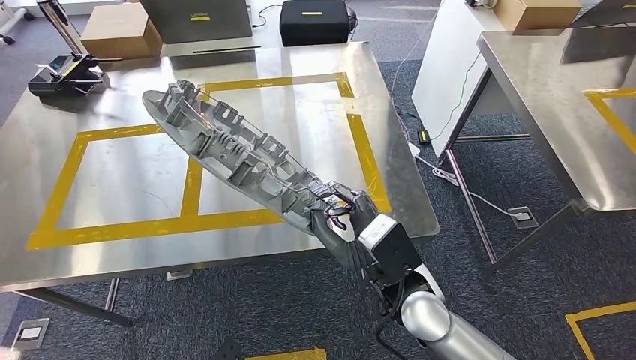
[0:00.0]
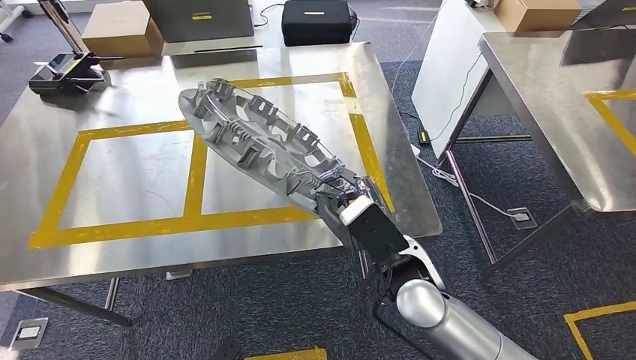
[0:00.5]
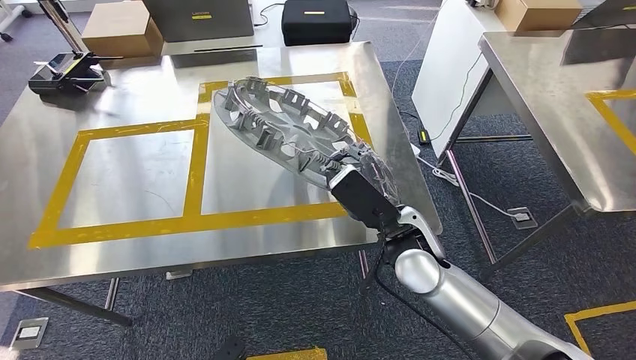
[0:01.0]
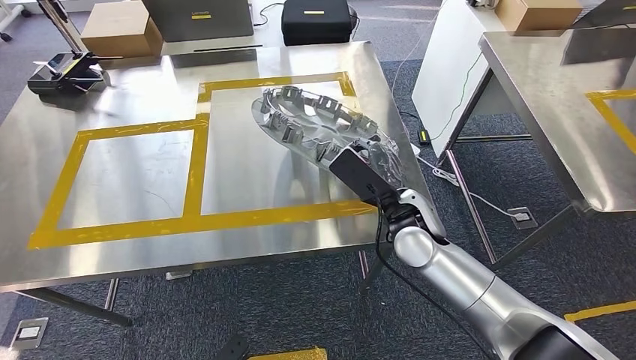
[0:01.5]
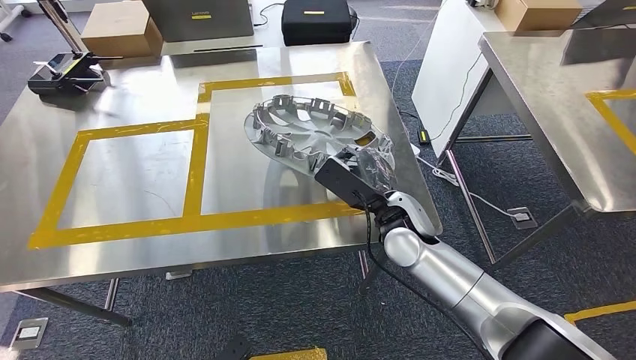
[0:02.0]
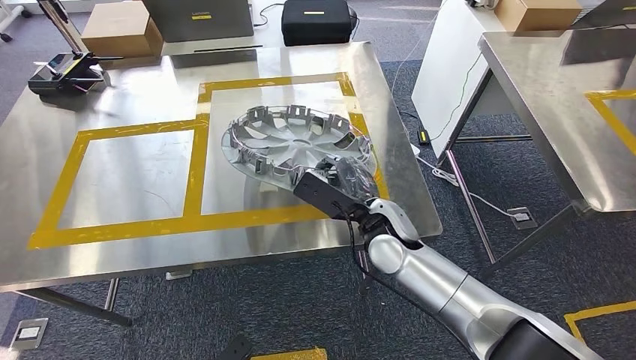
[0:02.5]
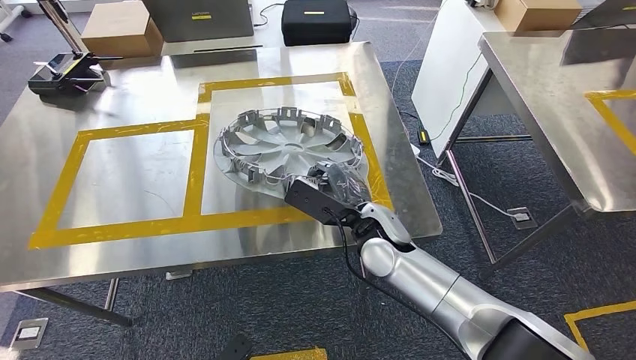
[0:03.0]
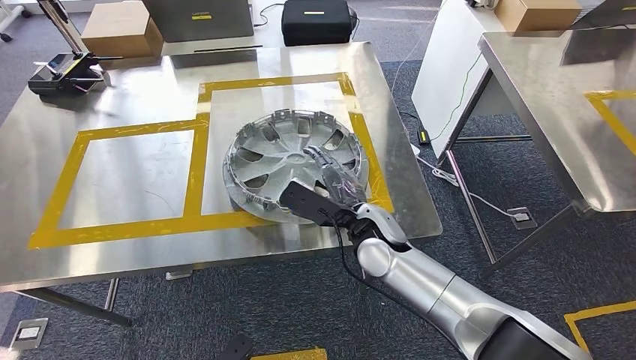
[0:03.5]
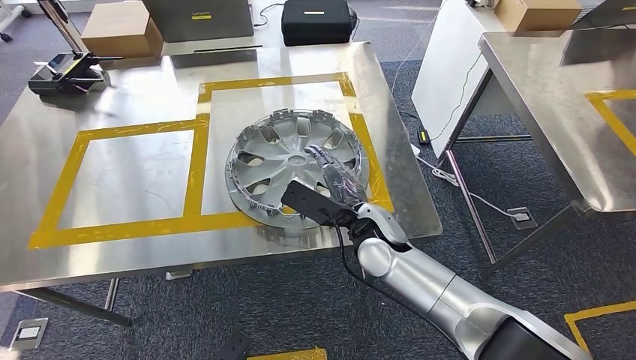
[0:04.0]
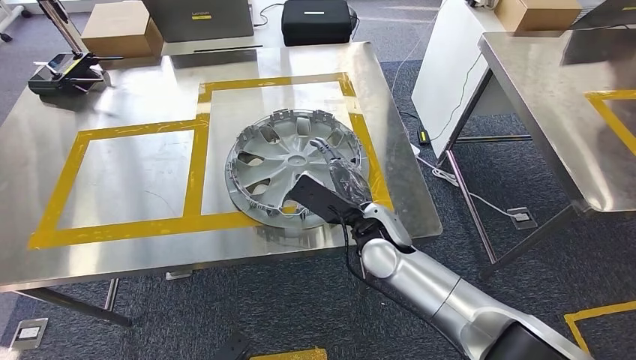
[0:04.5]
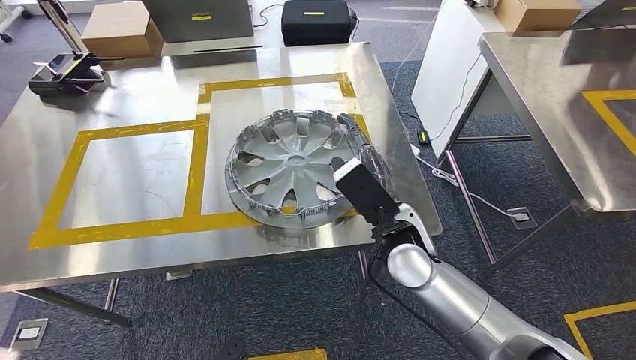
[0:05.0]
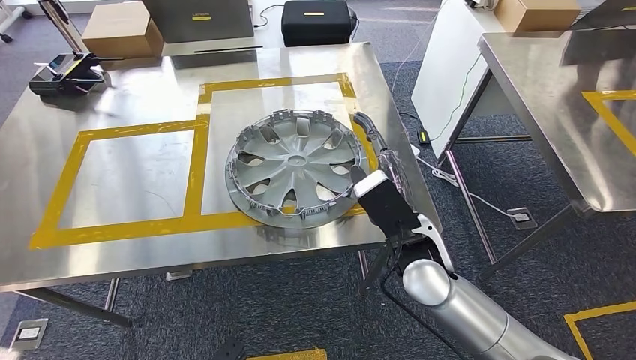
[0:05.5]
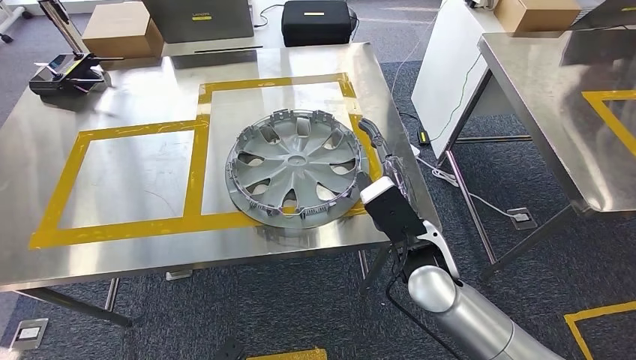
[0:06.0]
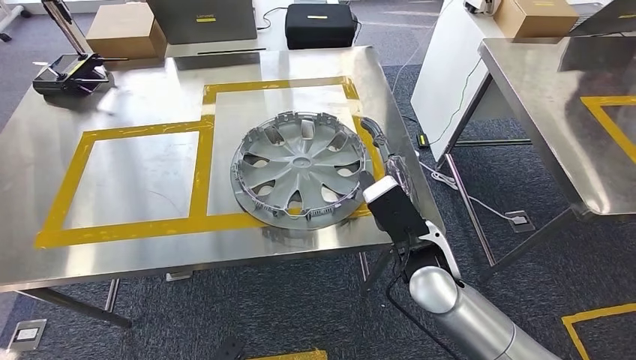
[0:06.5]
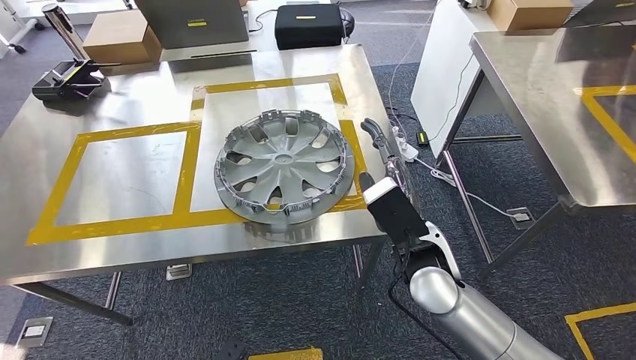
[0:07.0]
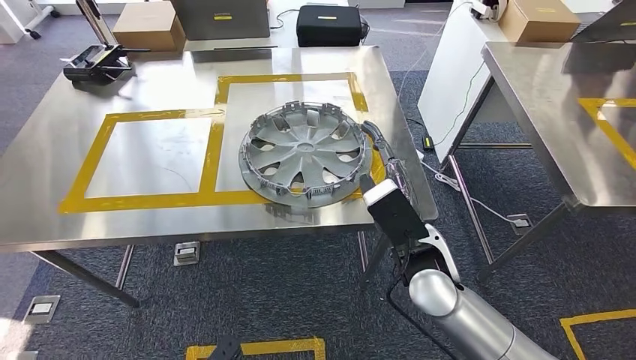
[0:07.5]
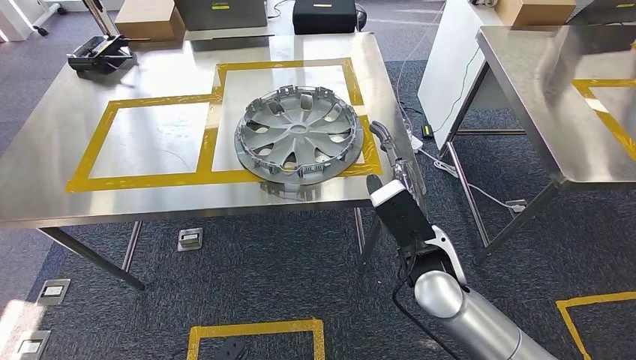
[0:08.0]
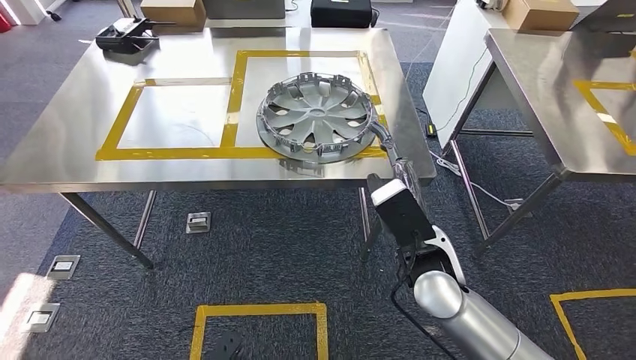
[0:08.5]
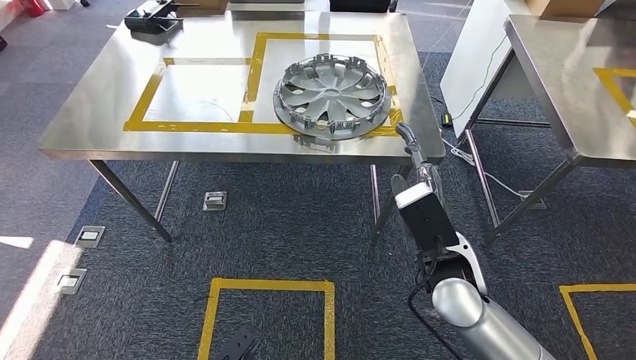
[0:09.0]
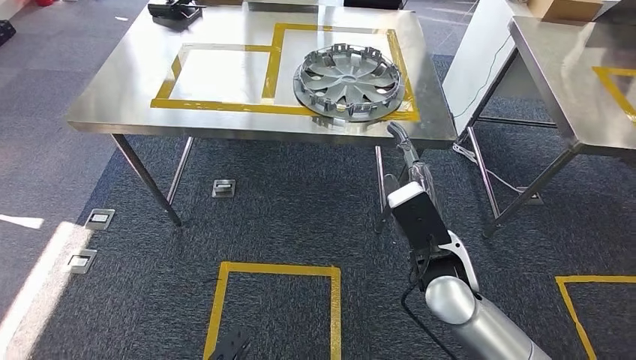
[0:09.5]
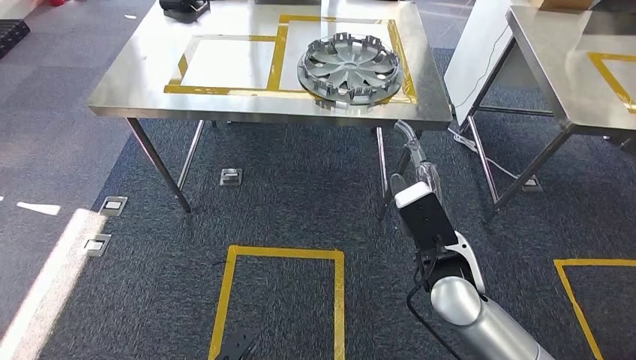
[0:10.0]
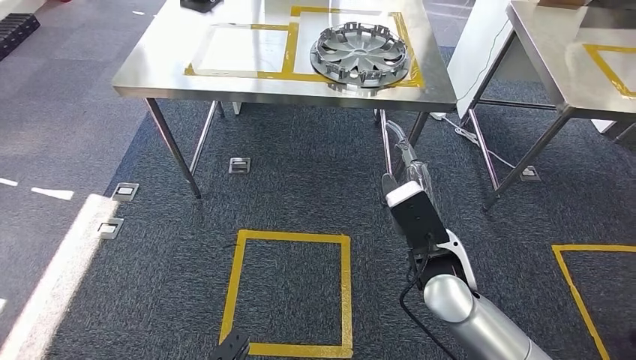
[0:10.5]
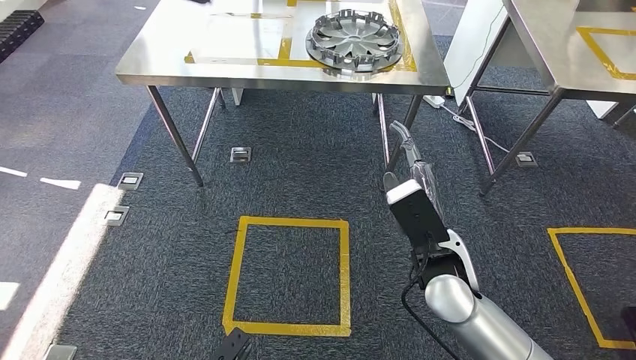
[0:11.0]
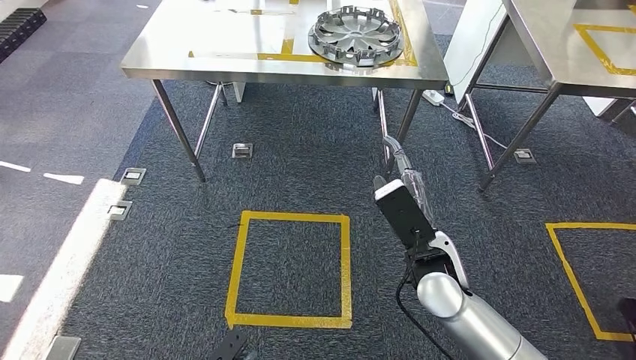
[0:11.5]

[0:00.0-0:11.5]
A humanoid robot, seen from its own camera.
Step, 0:00.0 to 0:07.5: Insert the large material into the corresponding slot on the workbench.
Step, 0:08.0 to 0:11.5: Move to the initial position of the shelf.
0:02.0 to 0:04.0: There are only small adjustments of the hands.
0:04.0 to 0:06.0: The right hand goes roughly 10 cm backward and to the right.
